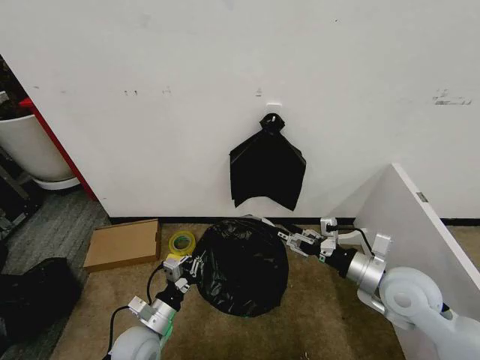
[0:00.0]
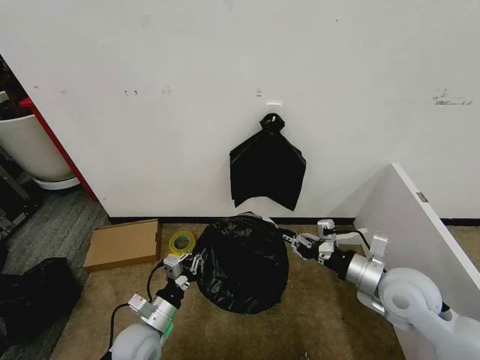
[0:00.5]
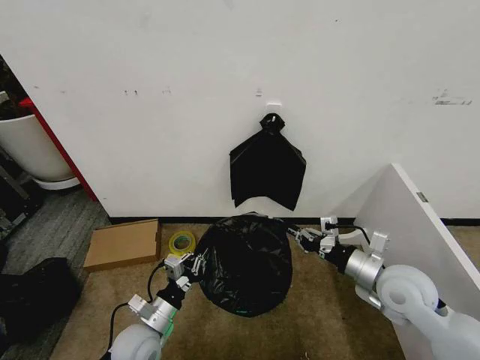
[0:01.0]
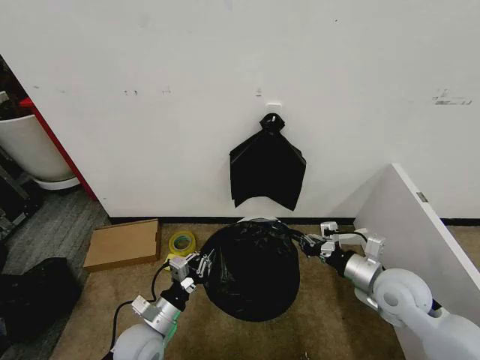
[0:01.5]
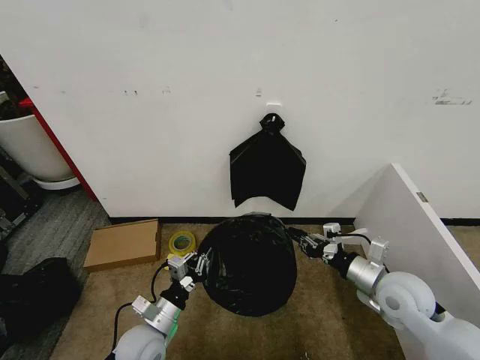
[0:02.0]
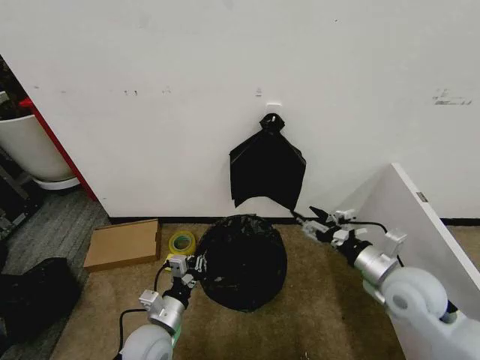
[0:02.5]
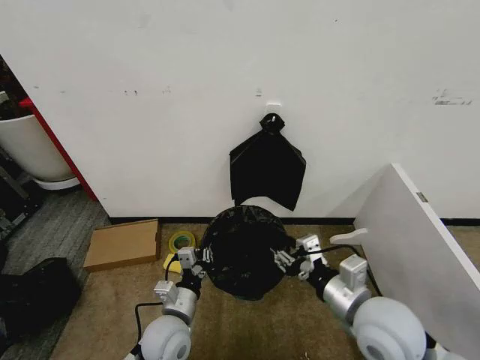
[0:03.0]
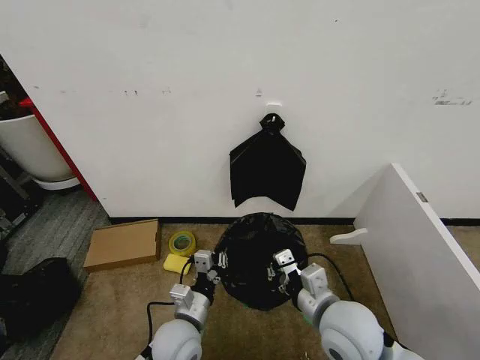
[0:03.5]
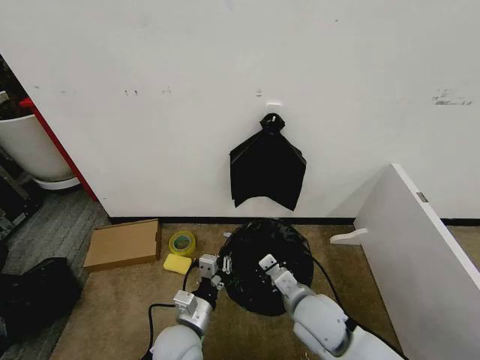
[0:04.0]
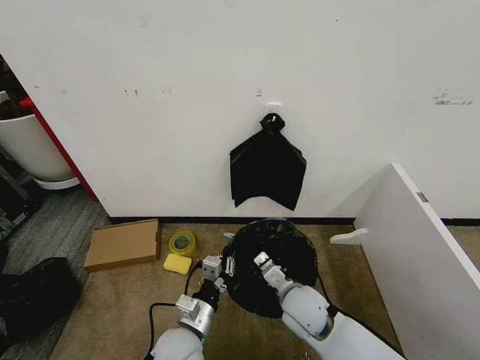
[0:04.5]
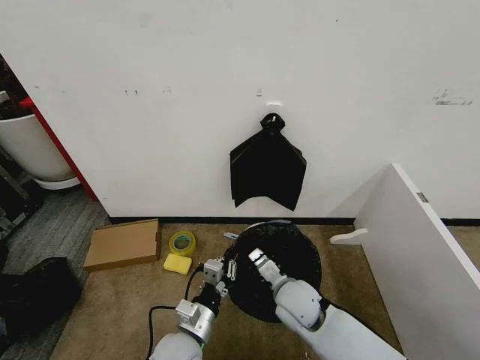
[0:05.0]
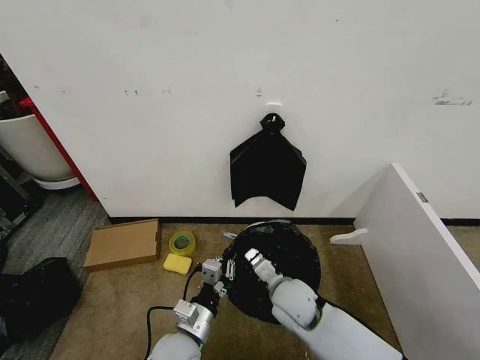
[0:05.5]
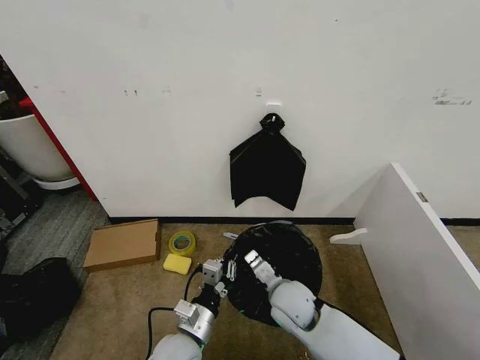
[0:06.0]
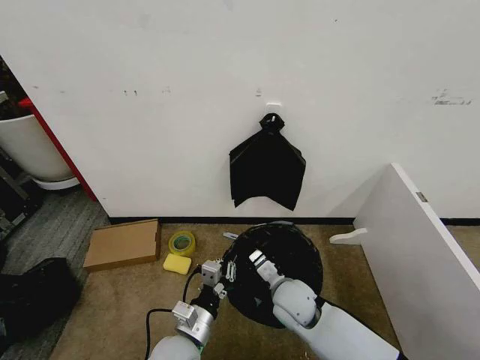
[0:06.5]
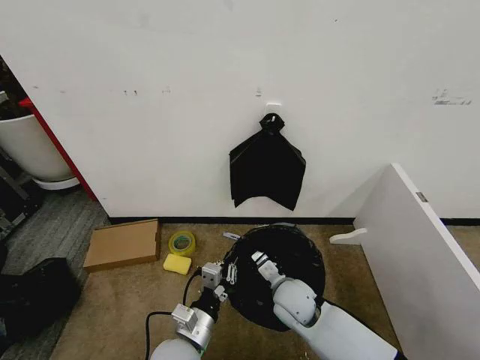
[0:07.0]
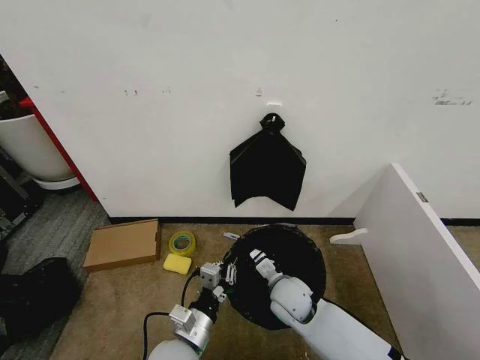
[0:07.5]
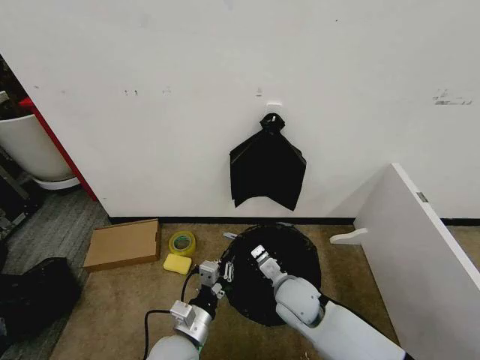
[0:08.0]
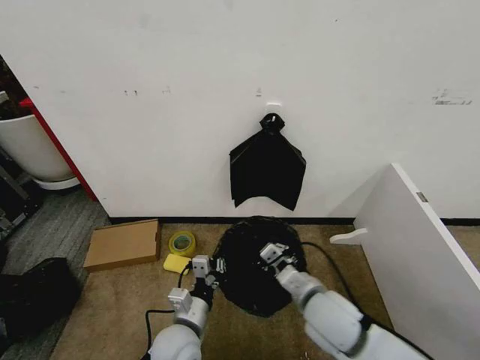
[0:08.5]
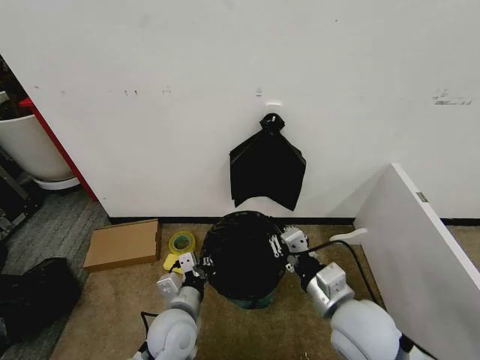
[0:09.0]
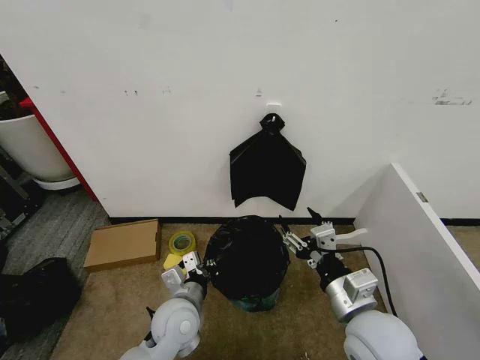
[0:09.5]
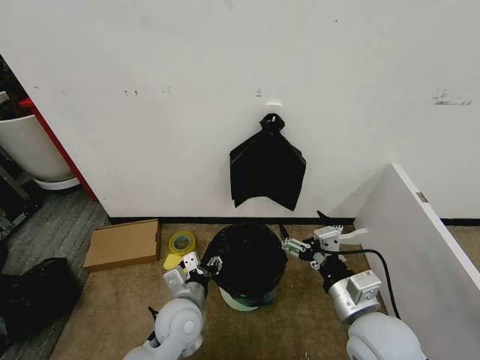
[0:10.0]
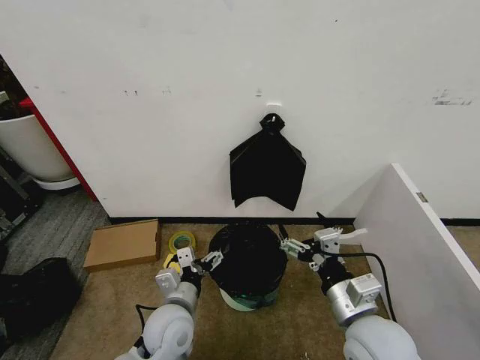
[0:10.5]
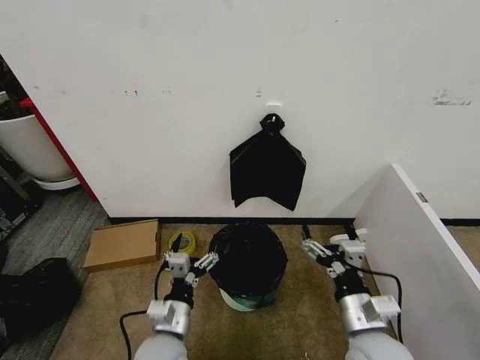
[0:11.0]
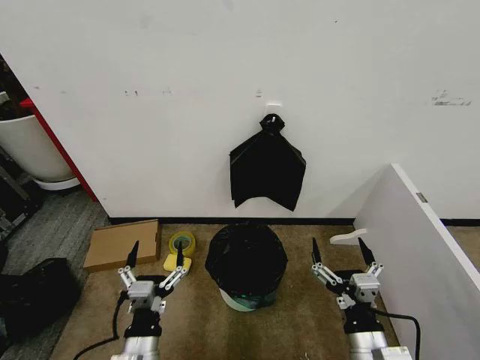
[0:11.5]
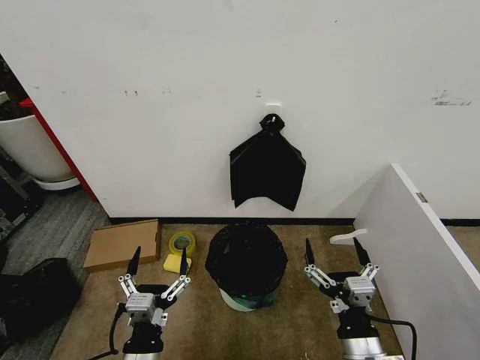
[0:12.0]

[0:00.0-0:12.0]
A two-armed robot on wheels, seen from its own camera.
Task of the whole recording: Place the garbage bag over the trash bin.
0.0 to 2.0 s: The right gripper closes up.
2.0 to 4.0 s: The right gripper travels to the left by roughly 15 cm, and opens, then closes again, while the left gripper is displaced to the right by about 10 cm.
4.0 to 6.0 s: The right gripper ends up about 10 cm from where it was.
6.0 to 8.0 s: The grippers make only small movements.
8.0 to 10.0 s: The left gripper goes roughly 5 cm forward, and opens up. The right gripper goes some 20 cm upward, backward and to the right, and opens.
10.0 to 12.0 s: The left gripper shifts roughly 15 cm backward, and opens; the right gripper heads backward and downward, covering some 10 cm.

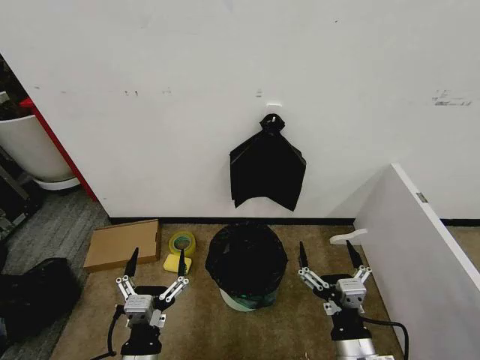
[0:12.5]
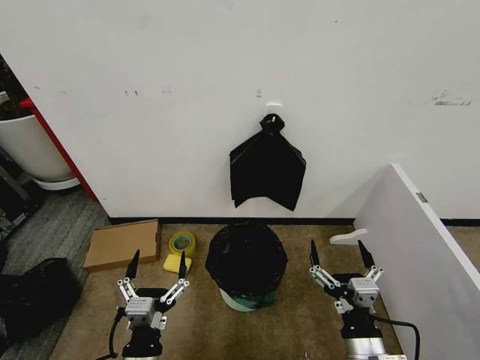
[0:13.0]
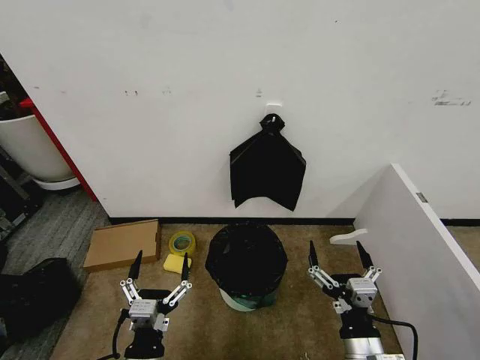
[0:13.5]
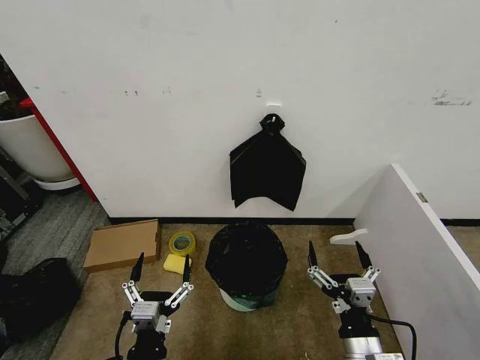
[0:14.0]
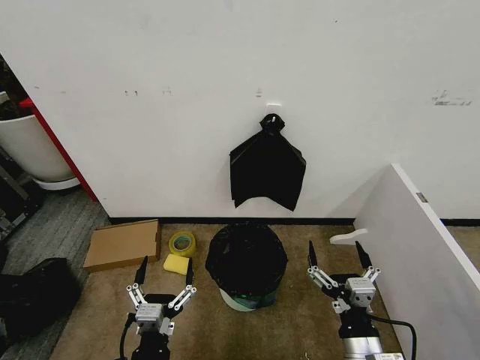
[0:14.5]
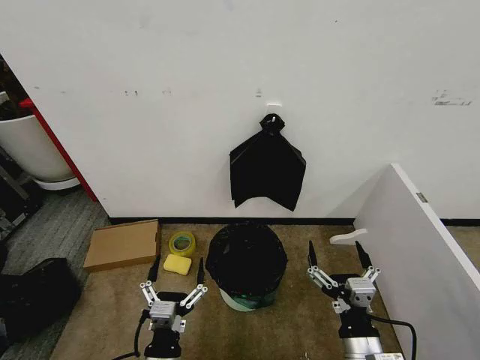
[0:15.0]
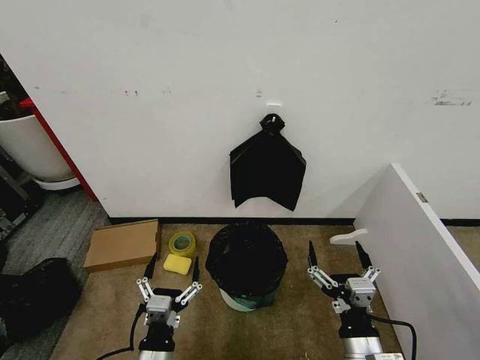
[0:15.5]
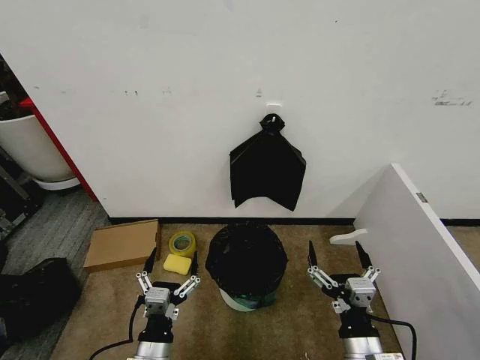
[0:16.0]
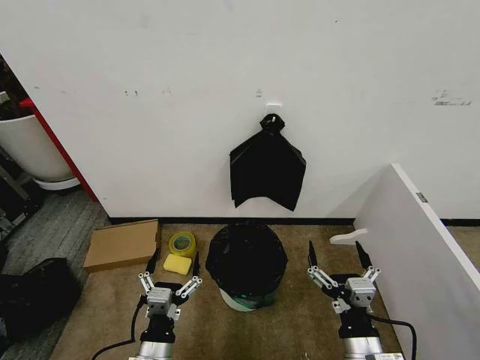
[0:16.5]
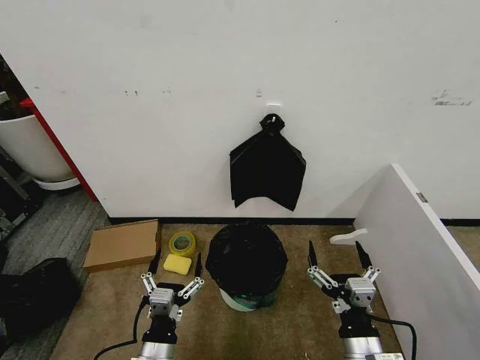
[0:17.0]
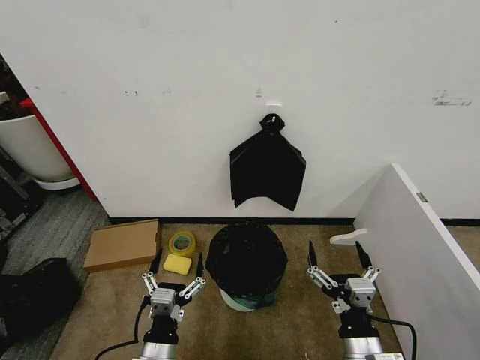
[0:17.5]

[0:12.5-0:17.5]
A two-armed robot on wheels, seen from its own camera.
Task of the whole recording: Place the garbage bag over the trash bin.
12.5 to 17.5 s: The grippers make only small movements.

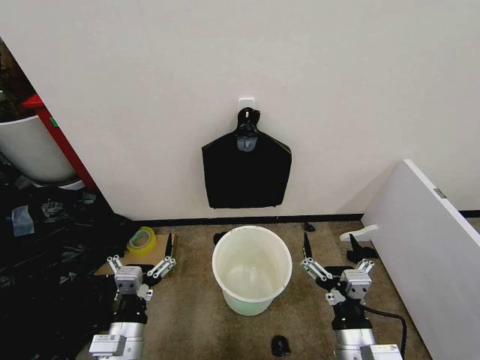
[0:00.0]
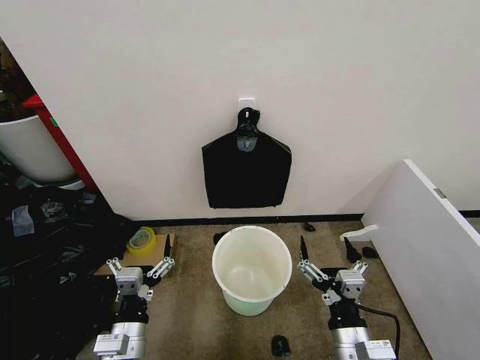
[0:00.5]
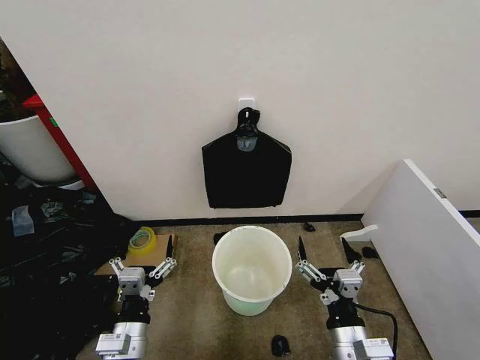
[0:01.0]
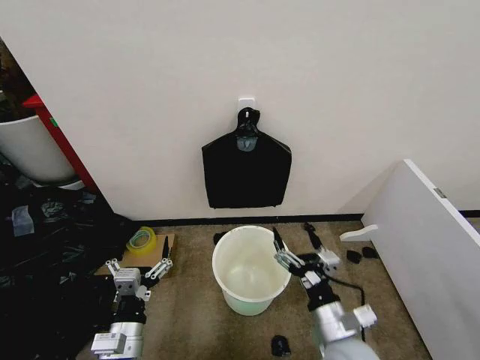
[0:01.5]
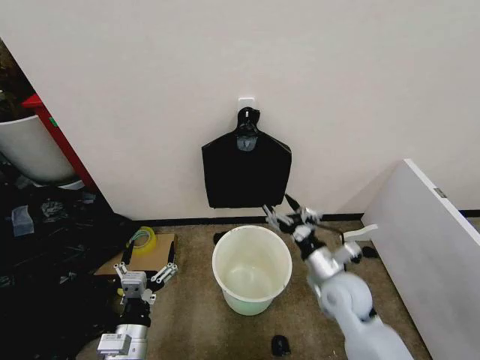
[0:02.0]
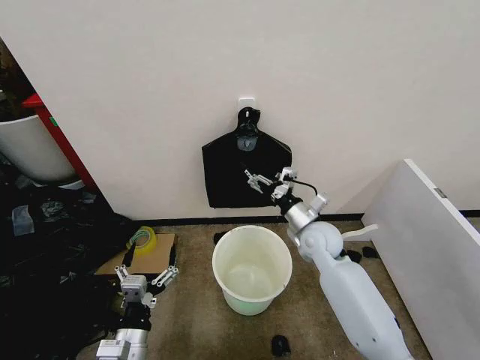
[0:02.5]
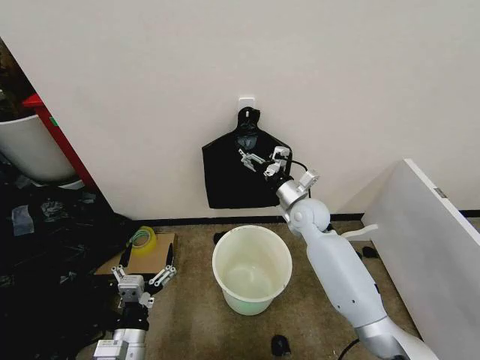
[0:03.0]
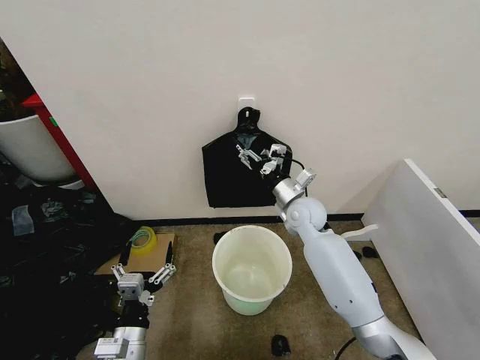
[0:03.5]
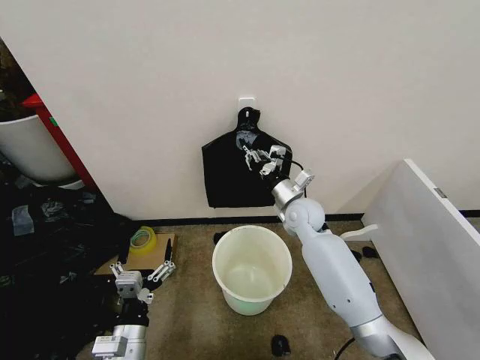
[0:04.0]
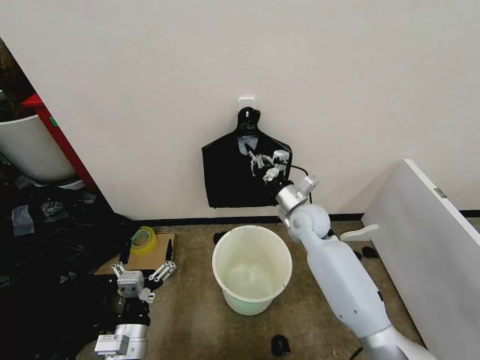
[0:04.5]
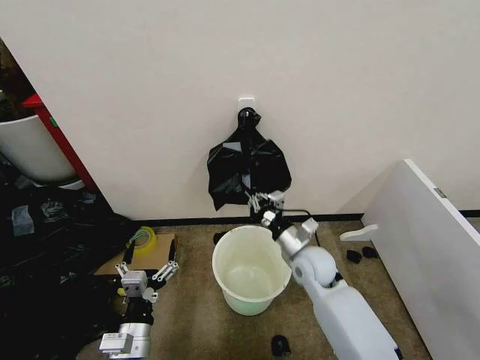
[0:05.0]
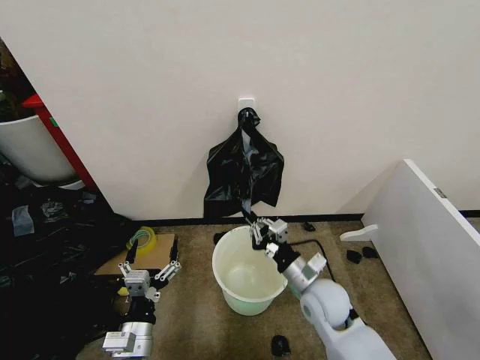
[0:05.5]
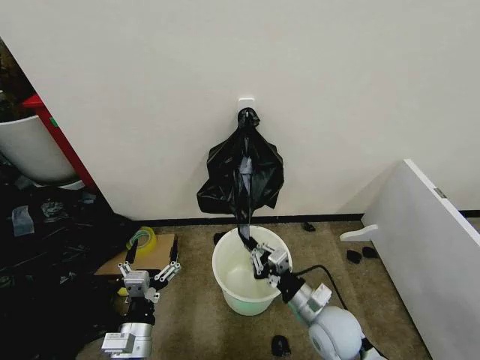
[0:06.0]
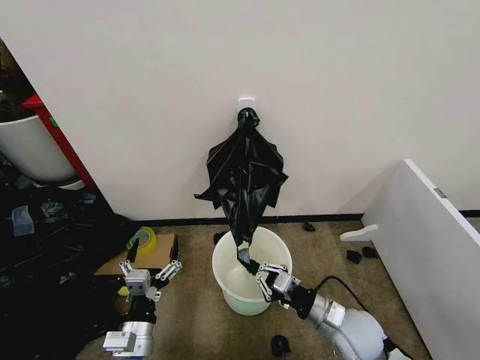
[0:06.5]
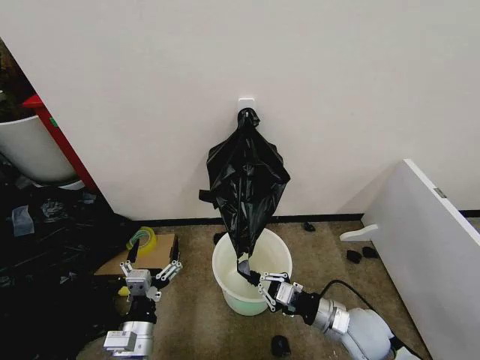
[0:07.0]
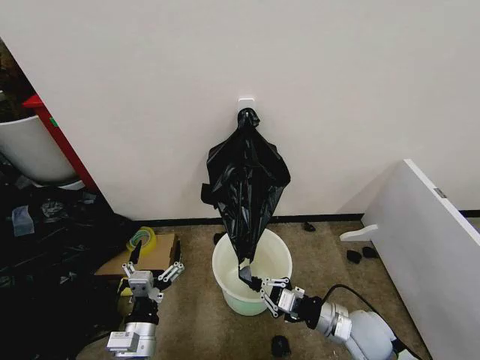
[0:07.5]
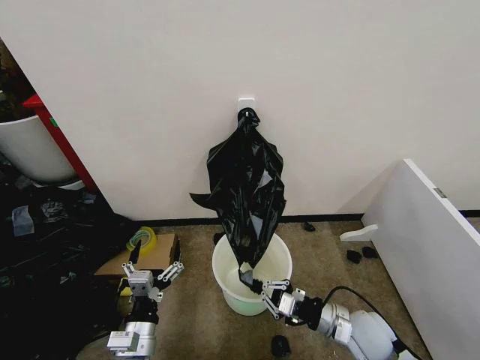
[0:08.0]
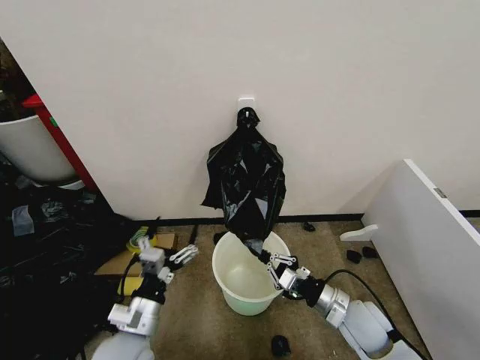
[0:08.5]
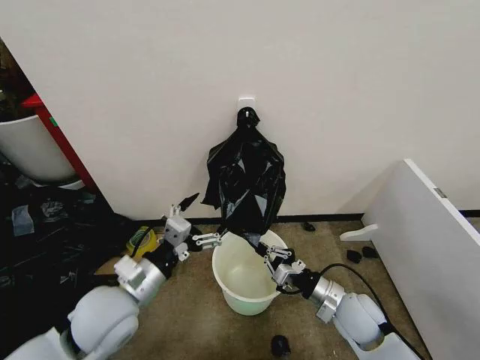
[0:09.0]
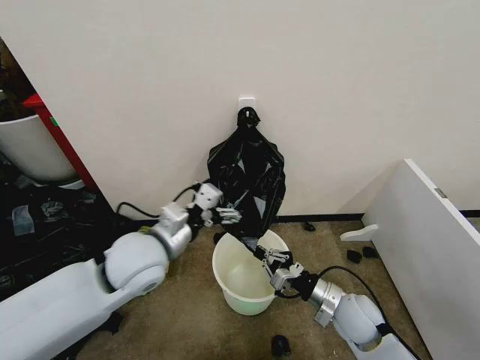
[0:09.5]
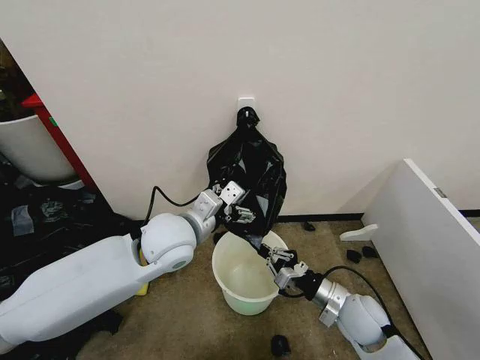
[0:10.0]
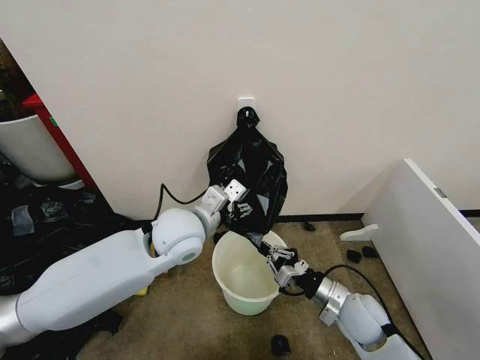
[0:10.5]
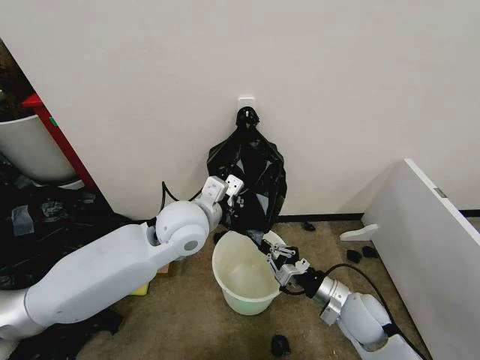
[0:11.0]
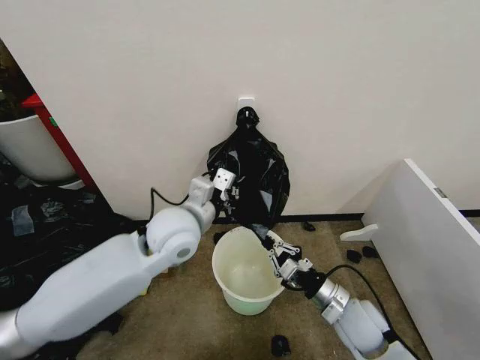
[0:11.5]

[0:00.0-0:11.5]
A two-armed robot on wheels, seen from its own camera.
Task of the whole recording: Place the garbage bag over the trash bin.
2.0 to 4.0 s: The right gripper moves forward, roughly 15 cm, and closes up.
4.0 to 6.0 s: The right gripper is displaced backward by some 25 cm.
6.0 to 7.5 s: The right gripper shifts some 5 cm to the right.
7.5 to 9.5 s: The left gripper moves upward and forward, roughly 25 cm.
9.5 to 11.5 s: The left gripper travels to the right and forward by some 10 cm, and closes.
